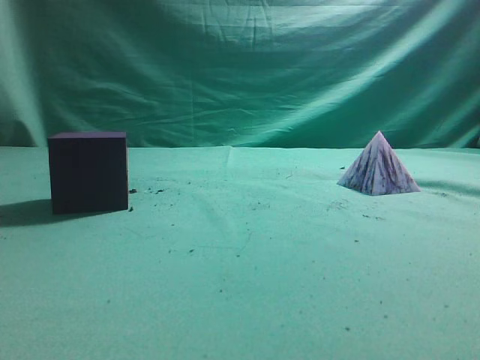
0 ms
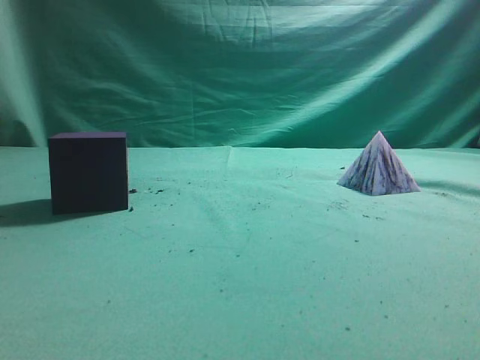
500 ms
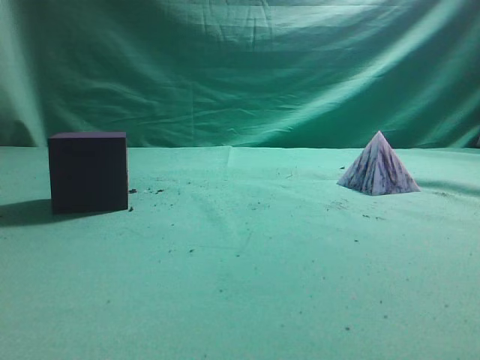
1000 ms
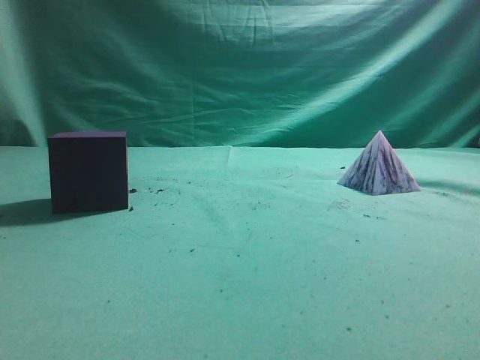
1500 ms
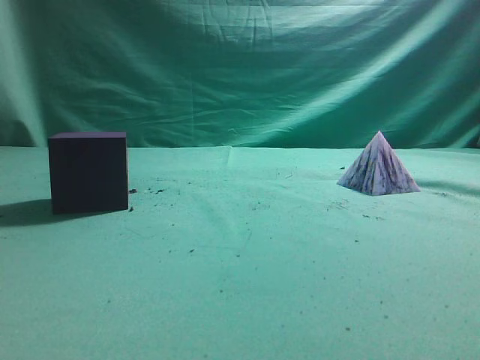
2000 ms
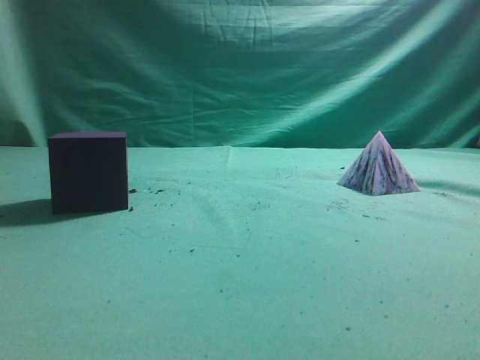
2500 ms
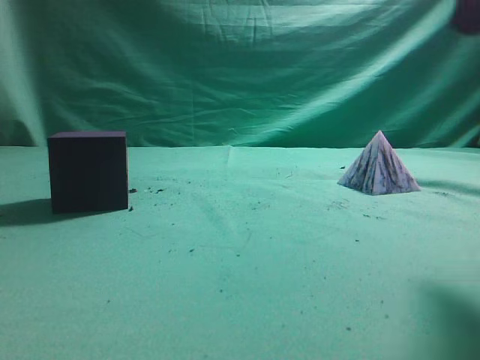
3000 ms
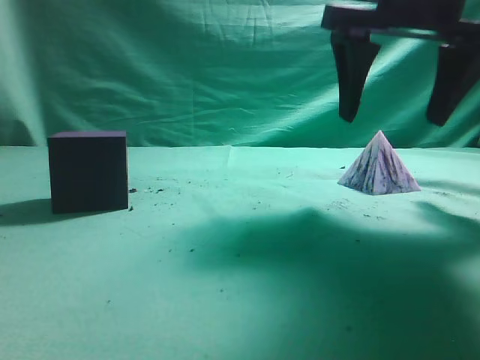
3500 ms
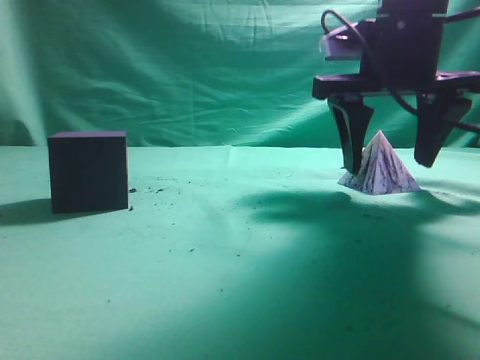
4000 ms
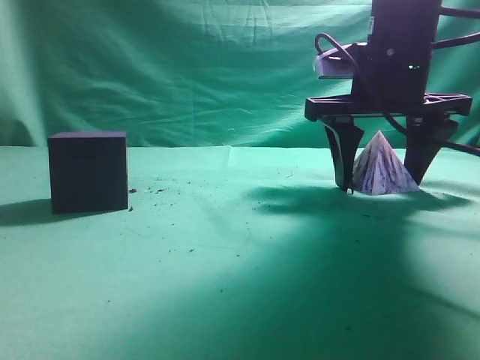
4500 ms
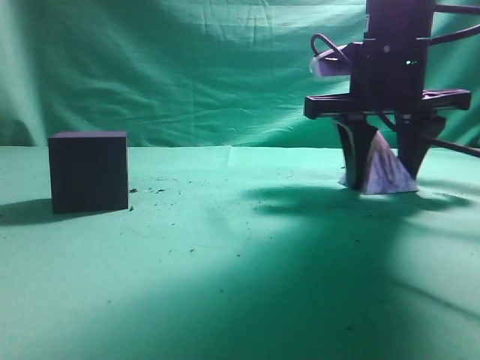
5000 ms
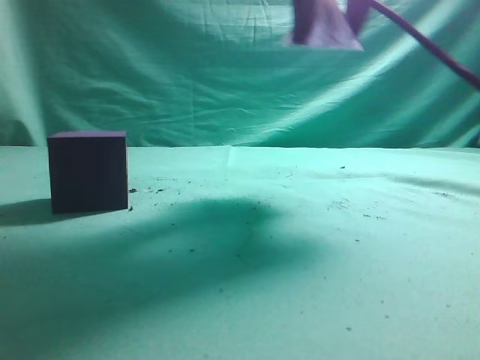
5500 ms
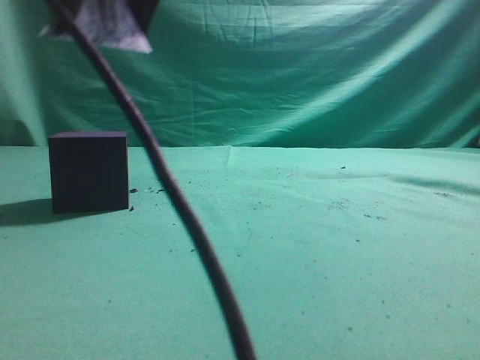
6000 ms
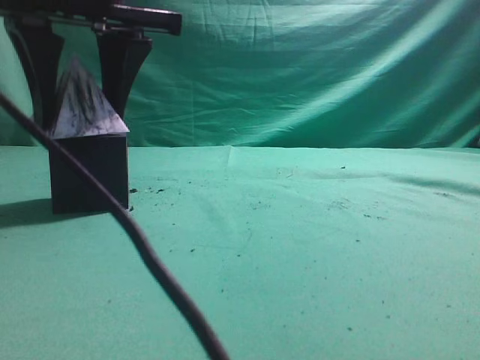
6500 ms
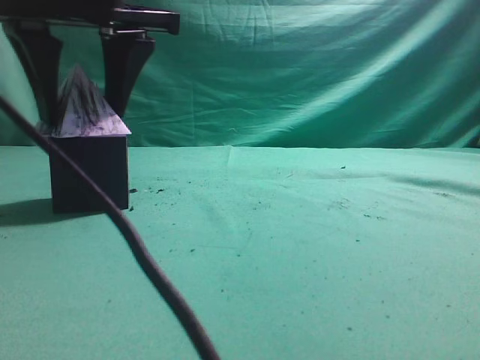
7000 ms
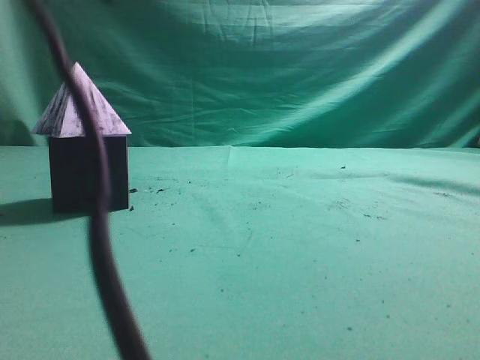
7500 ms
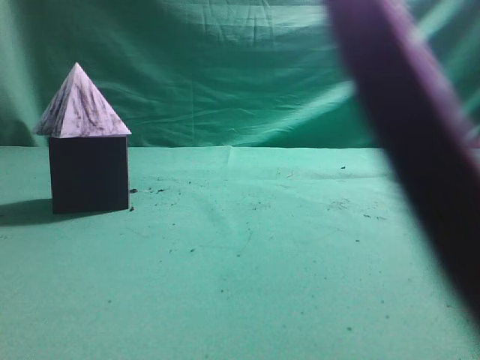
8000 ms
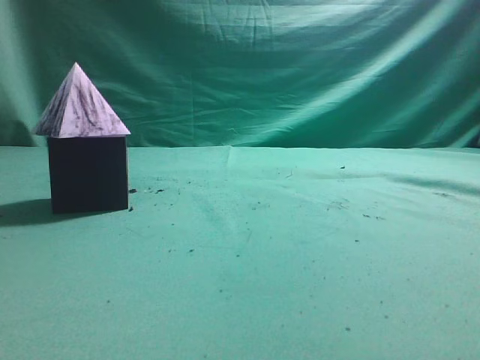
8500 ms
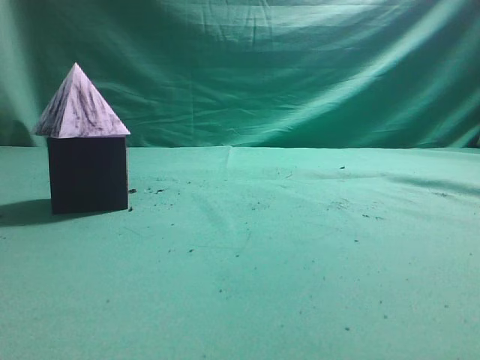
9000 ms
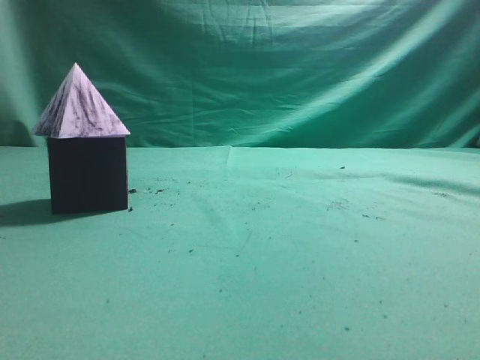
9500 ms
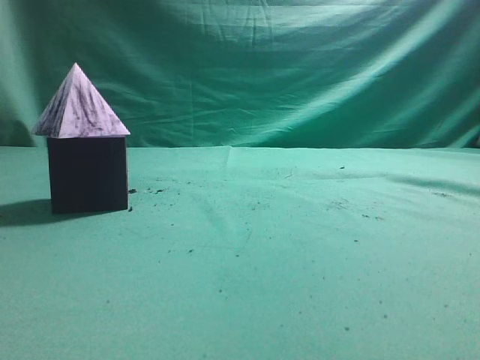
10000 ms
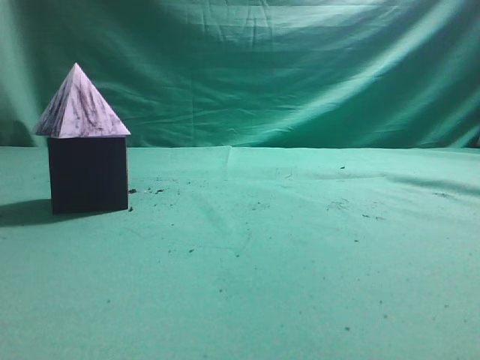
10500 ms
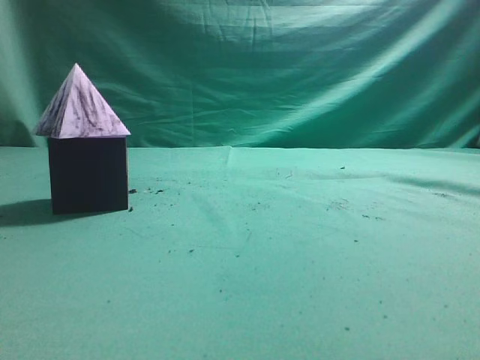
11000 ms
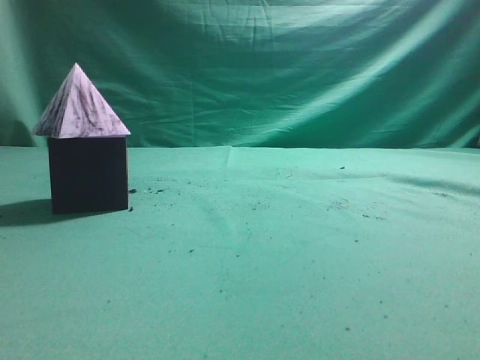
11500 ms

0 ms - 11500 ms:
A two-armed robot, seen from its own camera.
Task of the whole recording: pick up the square pyramid from the table and place it on the cube block.
Step, 0 ms - 5000 ms: Grasp the triangular block.
Step, 5500 ms - 7000 ms: Place the block onto the cube-shaped block.
2000 ms - 4000 ms: The right gripper moves forward and to the left, approximately 35 cm, and opens its fingers.
4000 ms - 6000 ms: The right gripper moves to the left, upward and backward, approximately 25 cm.
6000 ms - 7500 ms: The right gripper reaches about 5 cm downward, then returns.
